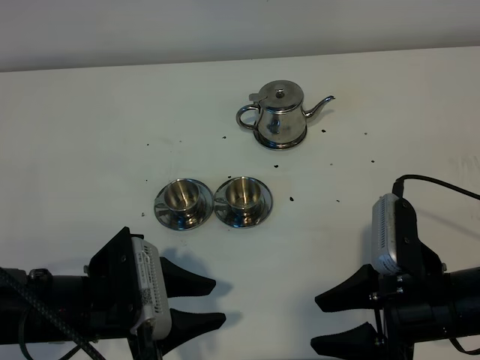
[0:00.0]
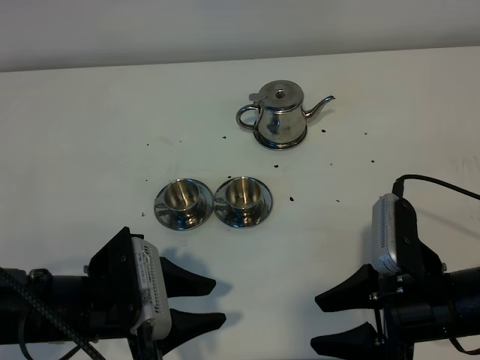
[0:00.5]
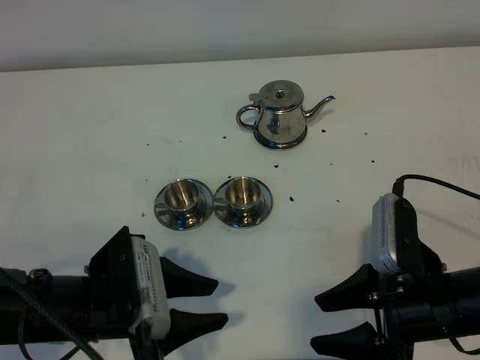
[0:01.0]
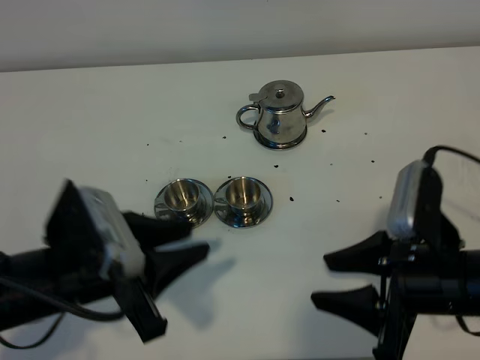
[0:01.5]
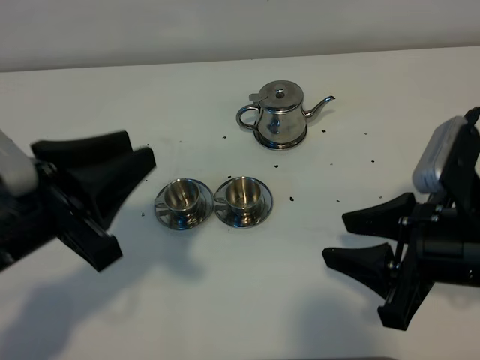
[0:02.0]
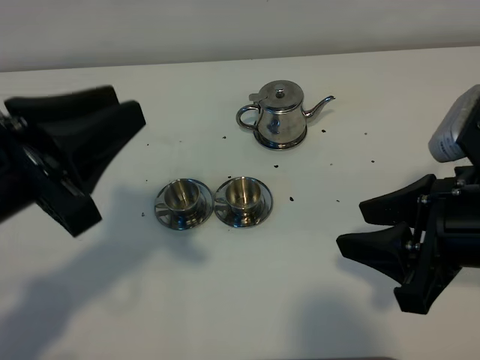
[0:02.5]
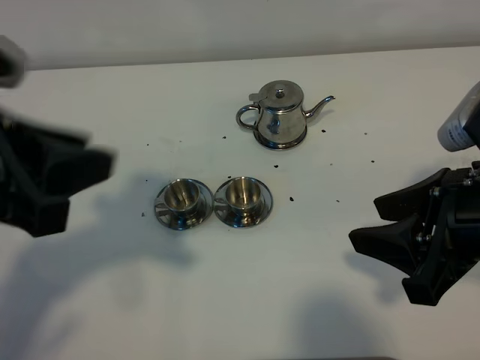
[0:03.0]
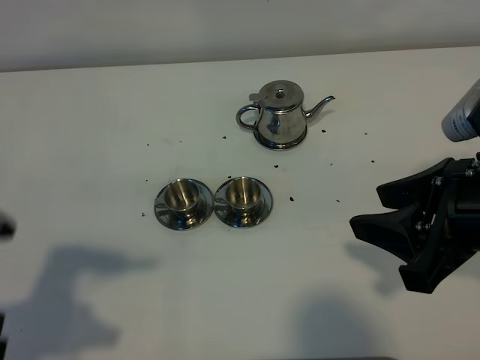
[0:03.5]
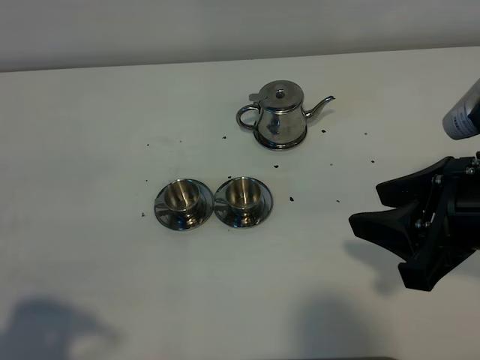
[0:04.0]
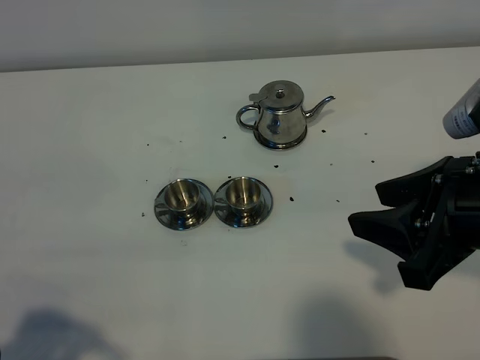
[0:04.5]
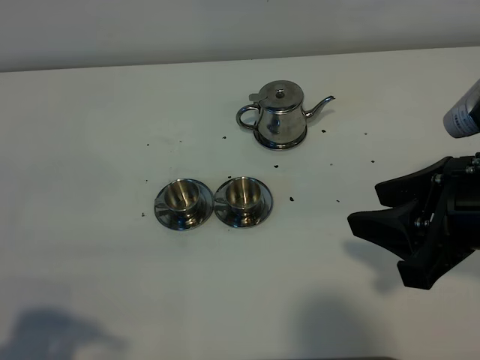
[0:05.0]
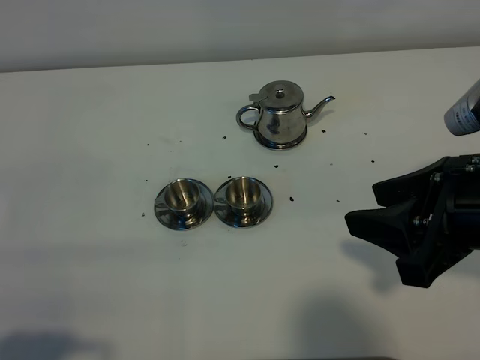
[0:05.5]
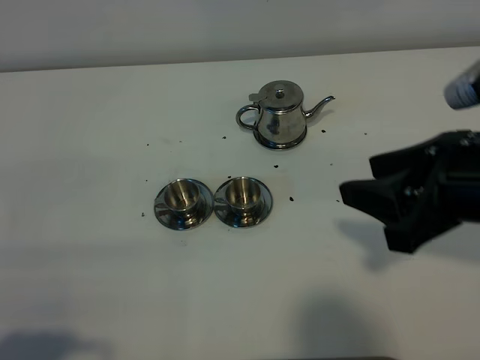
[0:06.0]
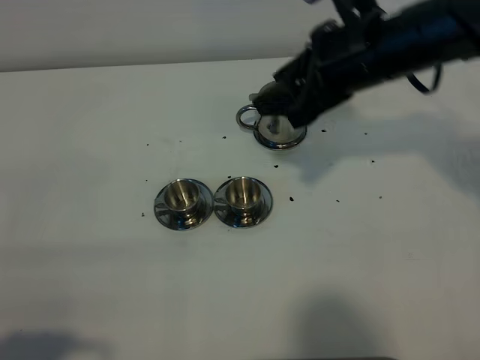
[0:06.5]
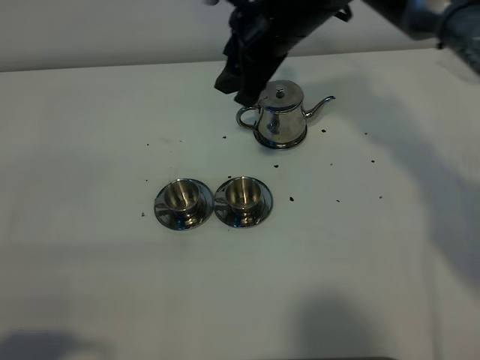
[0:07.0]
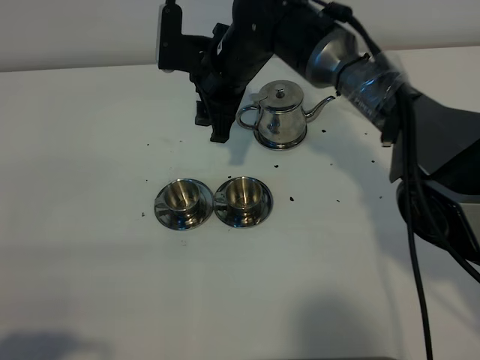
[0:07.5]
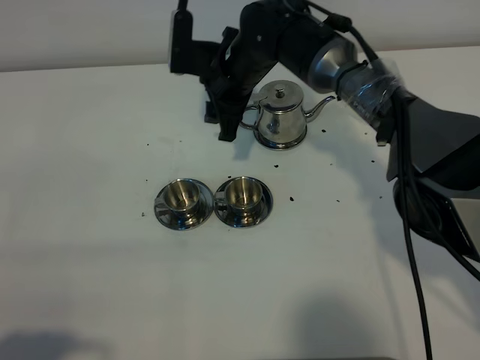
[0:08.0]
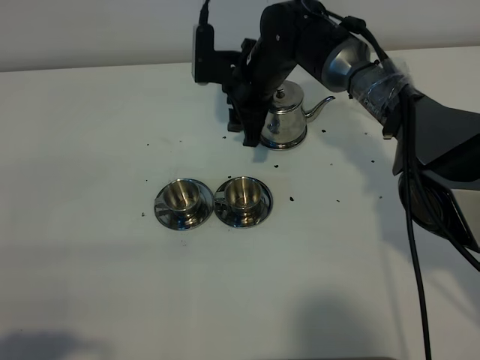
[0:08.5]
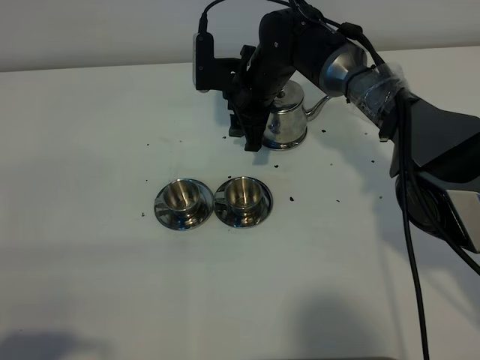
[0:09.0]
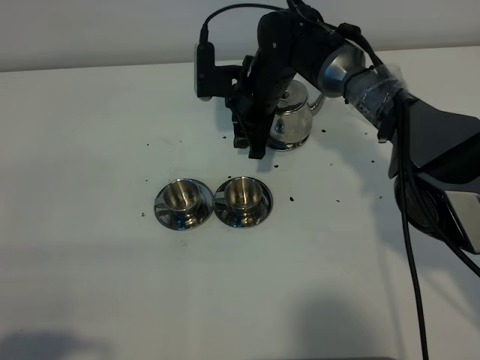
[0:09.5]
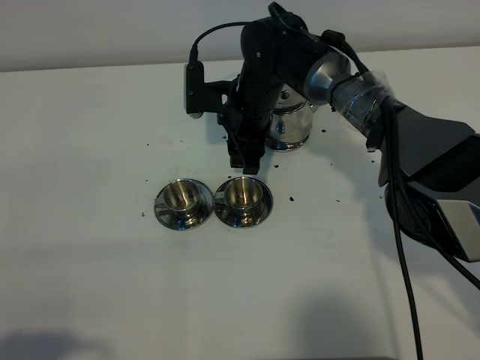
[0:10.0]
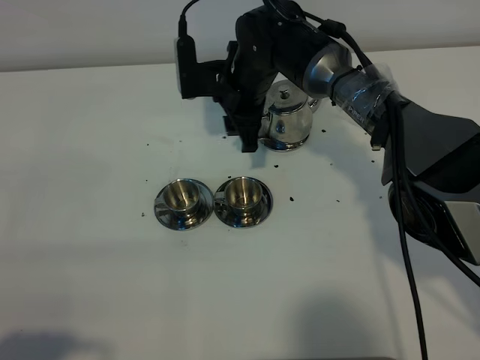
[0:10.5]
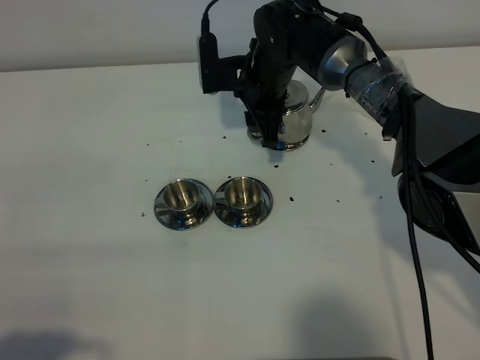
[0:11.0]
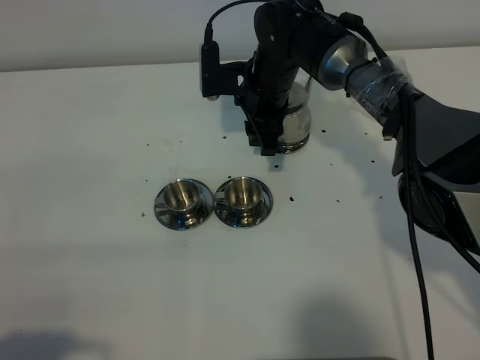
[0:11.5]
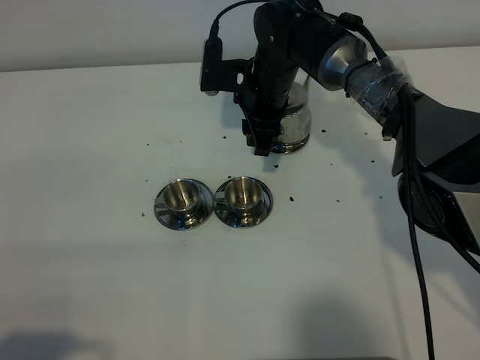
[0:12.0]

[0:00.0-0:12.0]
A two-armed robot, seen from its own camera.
Task of the whole recording: grasp the stainless steel teapot and pour the tea into the two stainless steel teacups one by one, put the stainless steel teapot back in its original place.
0:00.0 to 0:02.0: The right gripper goes approximately 10 cm upward. The left gripper moves upward, approximately 15 cm, and closes up.
0:02.0 to 0:04.0: The right gripper travels upward by approximately 5 cm. Meanwhile the left gripper shifts some 15 cm backward and to the left.
0:06.0 to 0:08.0: The right gripper moves forward, to the left and downward, about 35 cm.
0:08.0 to 0:12.0: The grippers move only a little.

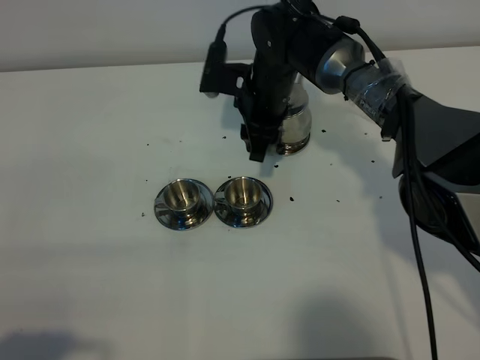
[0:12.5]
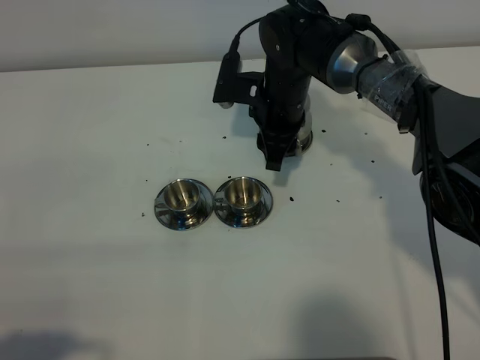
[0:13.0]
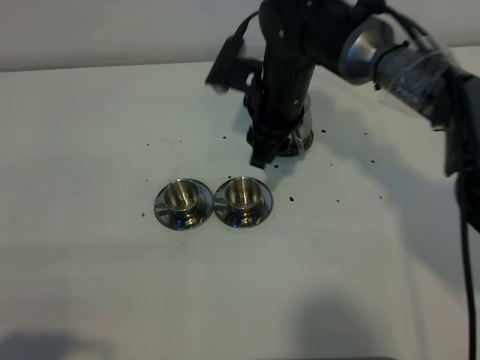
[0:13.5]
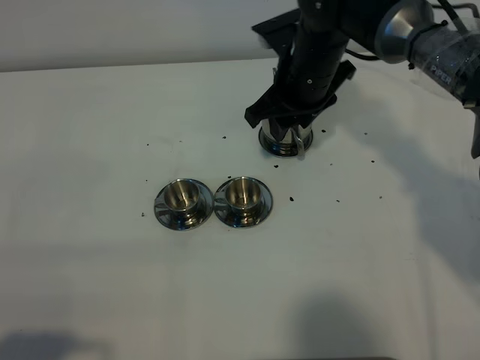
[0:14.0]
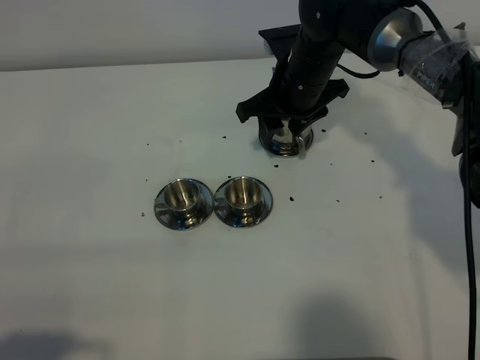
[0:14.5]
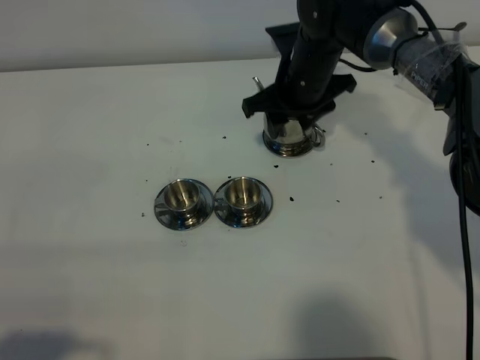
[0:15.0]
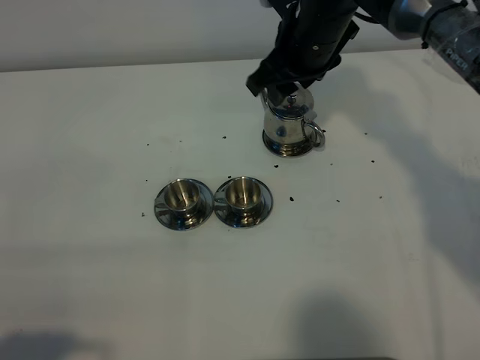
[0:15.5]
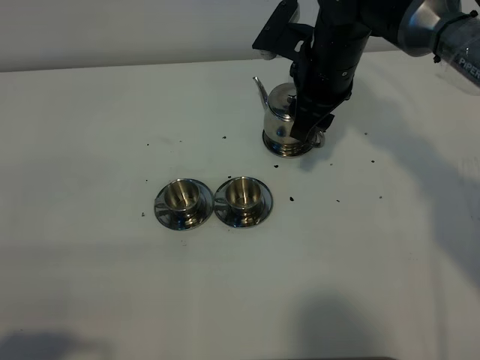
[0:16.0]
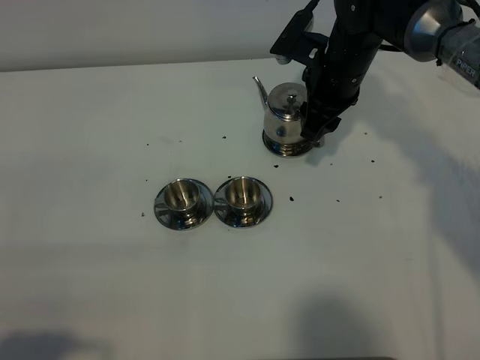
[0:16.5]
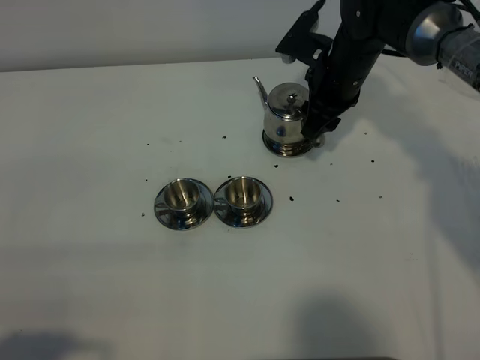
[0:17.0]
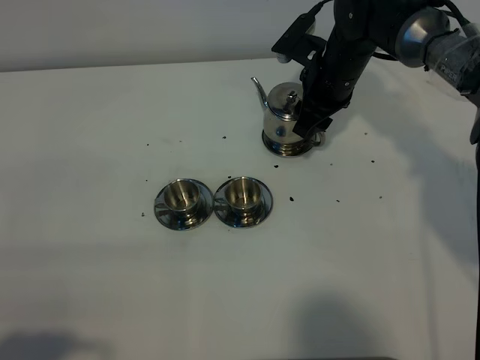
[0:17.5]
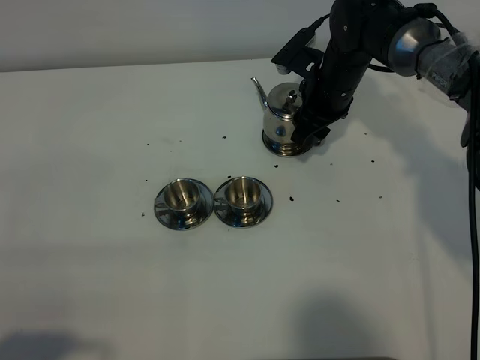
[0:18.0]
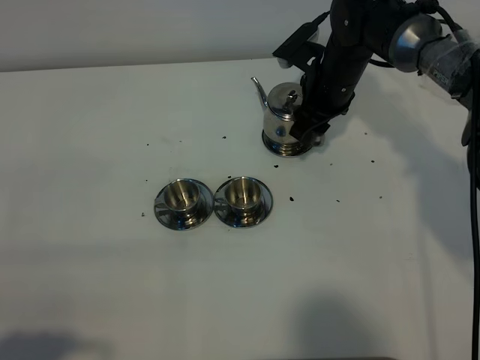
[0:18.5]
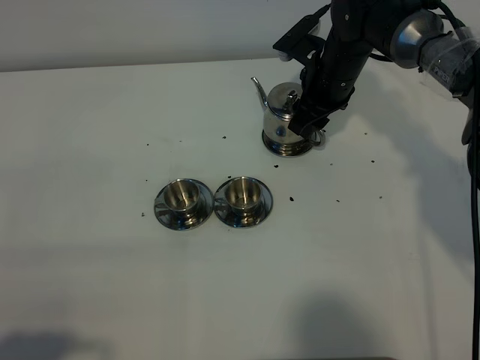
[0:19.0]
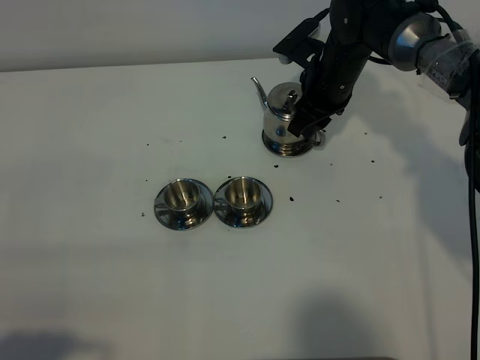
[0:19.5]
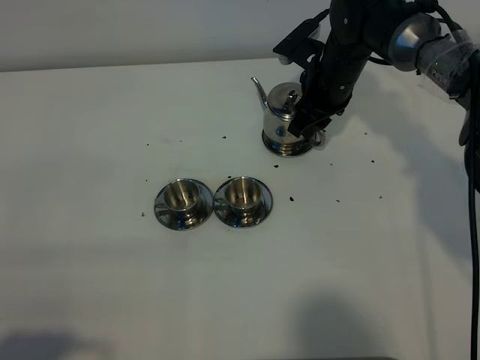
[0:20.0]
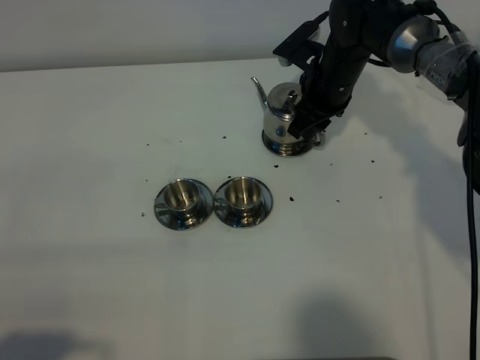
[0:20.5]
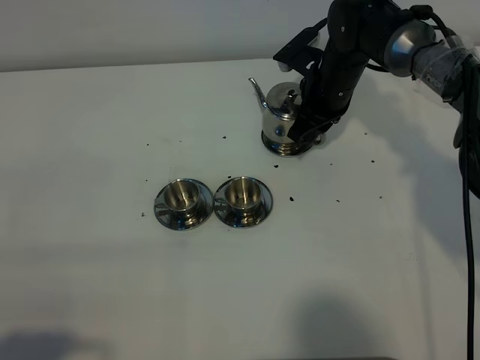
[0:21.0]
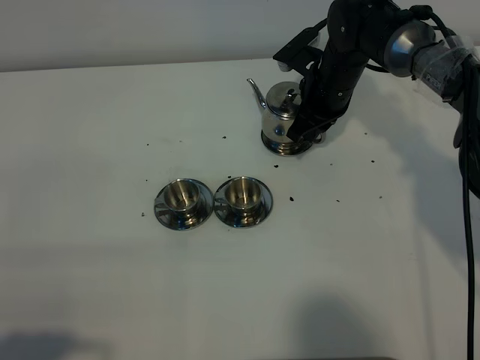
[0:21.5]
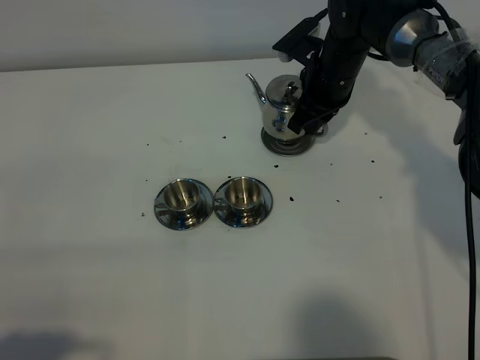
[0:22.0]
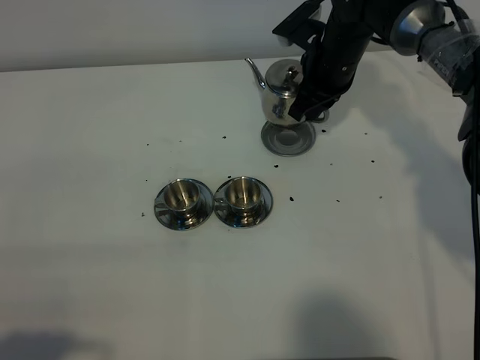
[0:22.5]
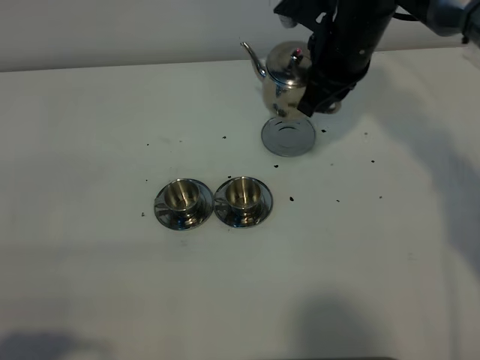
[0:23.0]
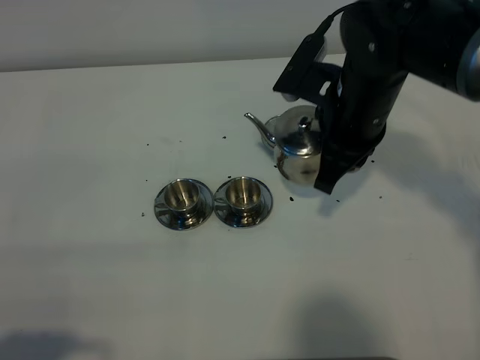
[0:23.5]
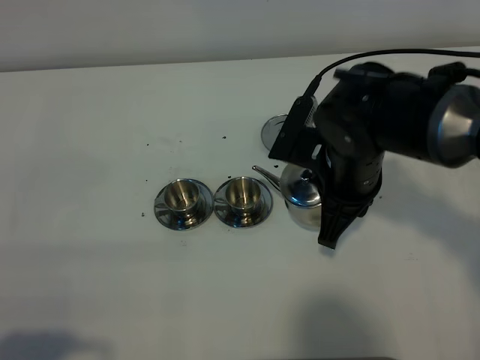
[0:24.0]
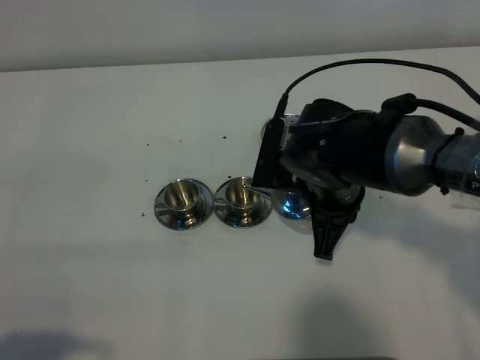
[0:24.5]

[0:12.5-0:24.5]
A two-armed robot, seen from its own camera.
Task of the whole recording: grasp the stainless steel teapot and pour the tea into the two stainless steel teacups one by one, put the stainless steel teapot back in its original place.
Step, 0:12.5 to 0:21.5: Pick up the teapot with the right gripper.
0:16.5 to 0:18.5: The grippers make only small movements.
0:18.5 to 0:20.5: The right gripper closes up.
0:20.5 to 0:22.5: The right gripper closes up.
0:22.5 to 0:24.5: The right gripper travels backward by roughly 20 cm.

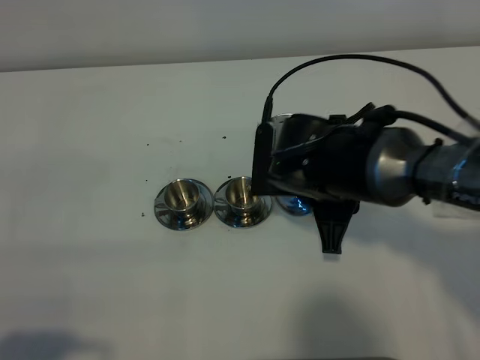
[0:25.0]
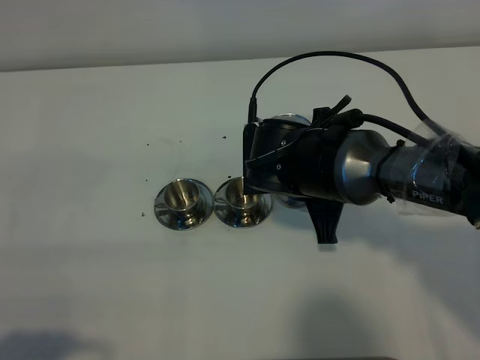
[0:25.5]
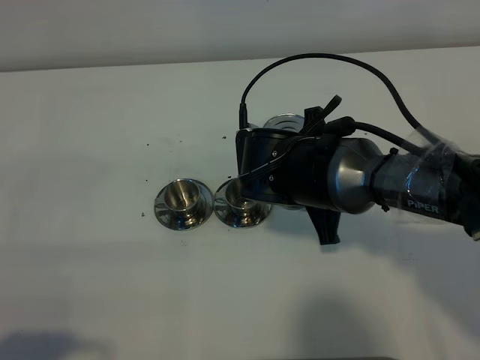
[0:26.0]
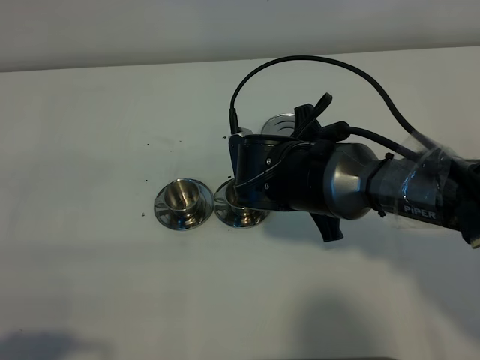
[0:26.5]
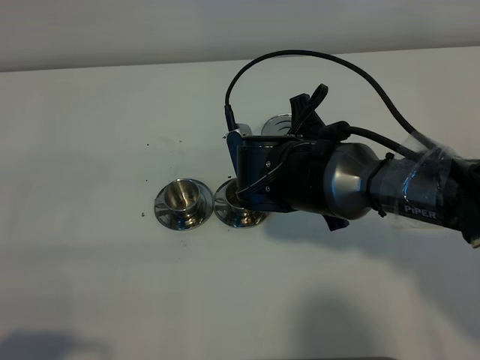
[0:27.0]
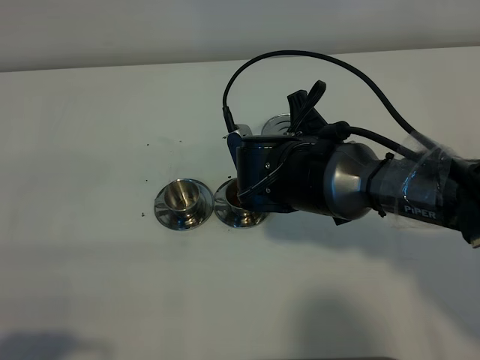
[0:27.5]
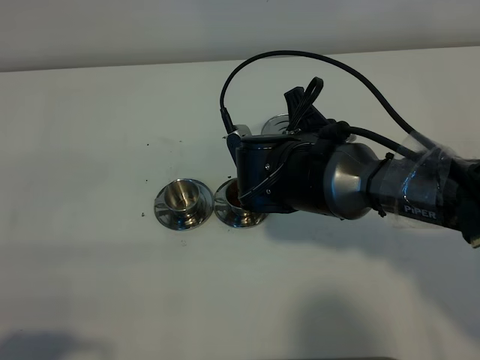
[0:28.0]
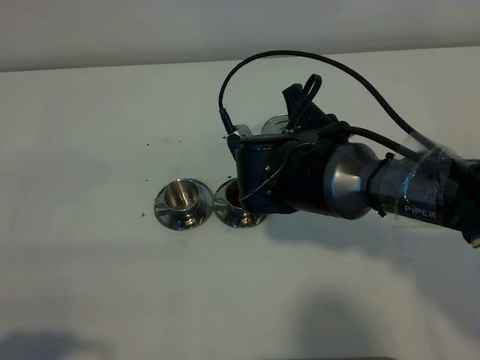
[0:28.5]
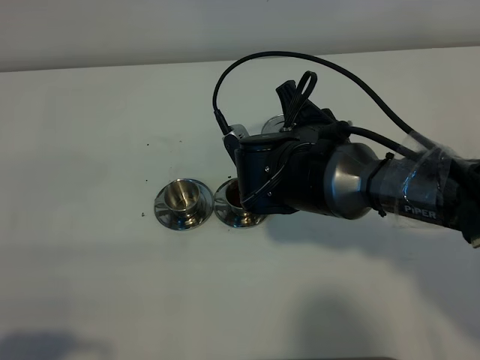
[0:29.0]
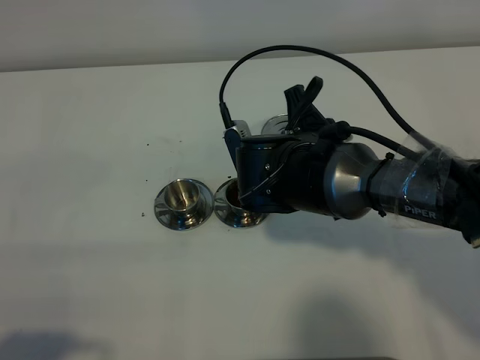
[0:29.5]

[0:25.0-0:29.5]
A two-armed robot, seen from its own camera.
Task of the whole recording: grasp the stainless steel teapot and pour the tea into the two stainless steel teacups one by one, put the stainless steel teapot back in its original place.
0:27.0 to 0:29.5: The grippers move only a little.
